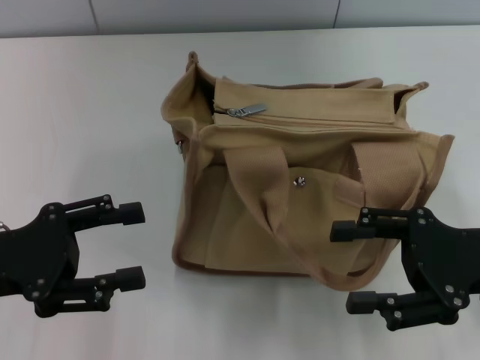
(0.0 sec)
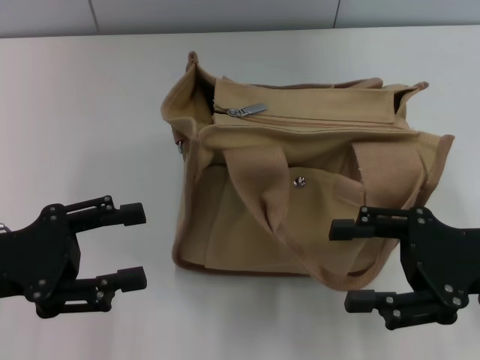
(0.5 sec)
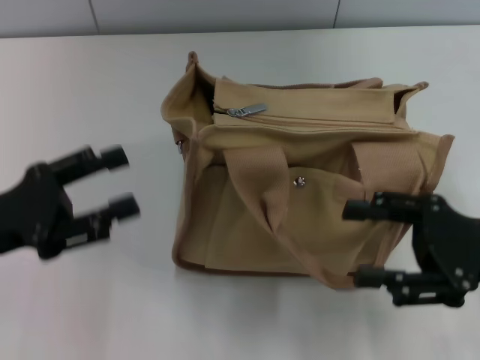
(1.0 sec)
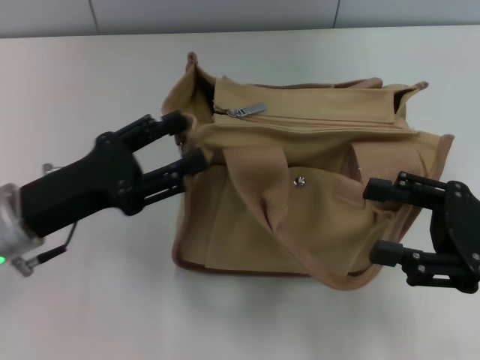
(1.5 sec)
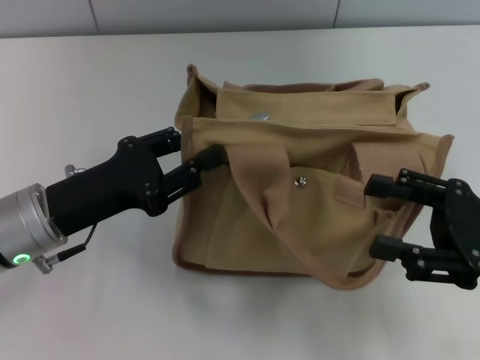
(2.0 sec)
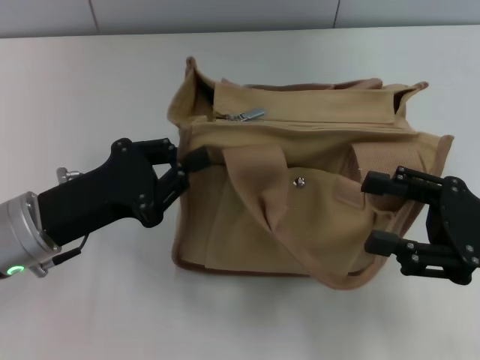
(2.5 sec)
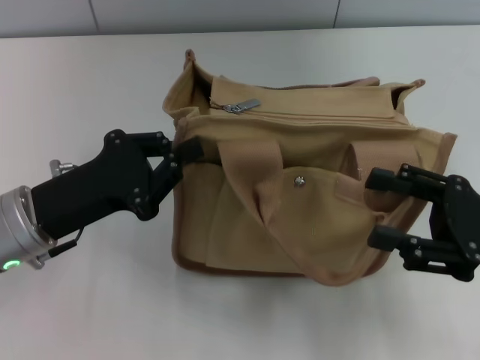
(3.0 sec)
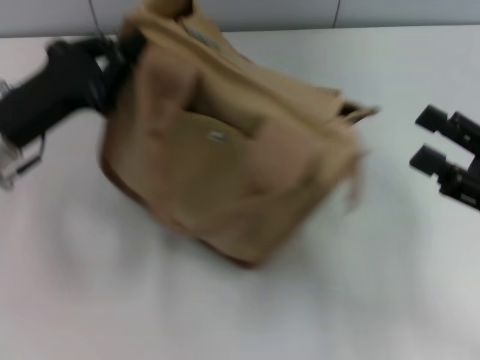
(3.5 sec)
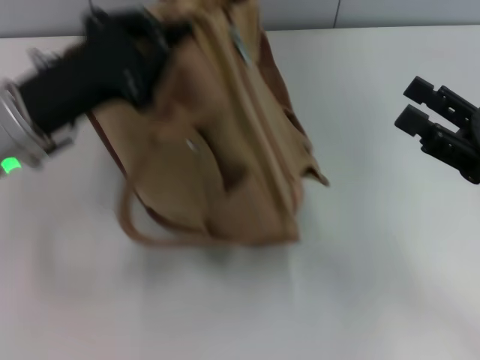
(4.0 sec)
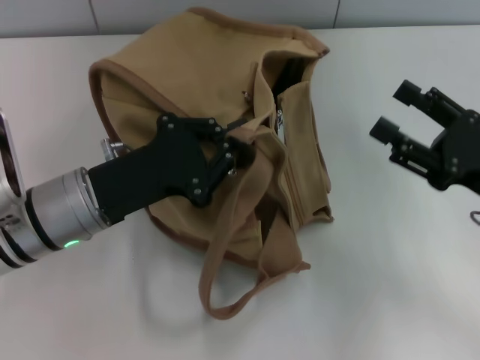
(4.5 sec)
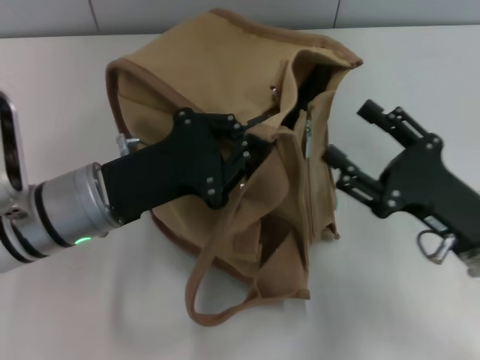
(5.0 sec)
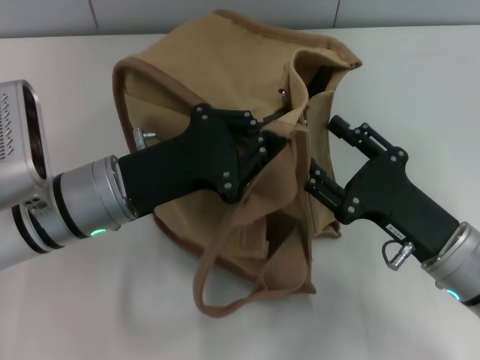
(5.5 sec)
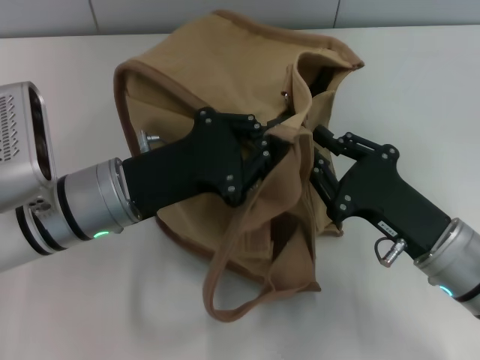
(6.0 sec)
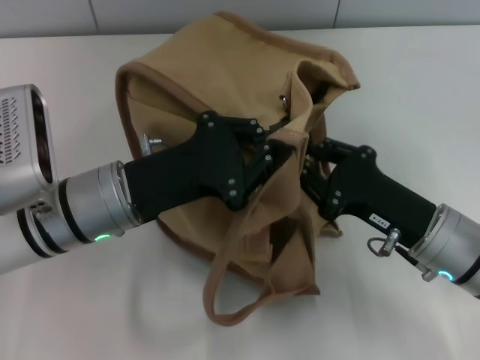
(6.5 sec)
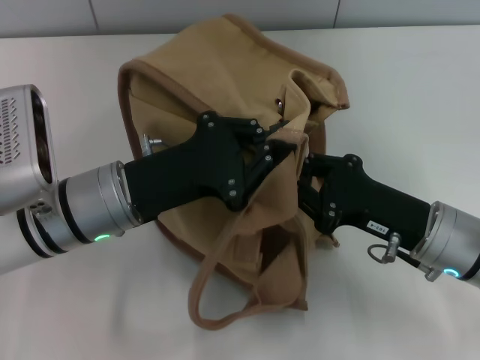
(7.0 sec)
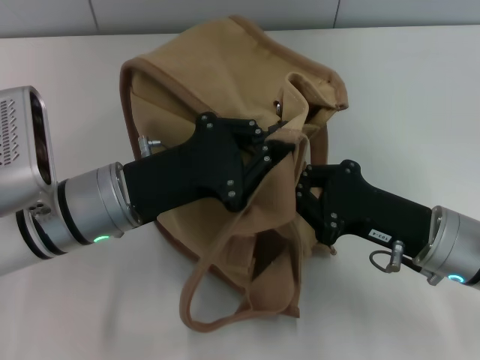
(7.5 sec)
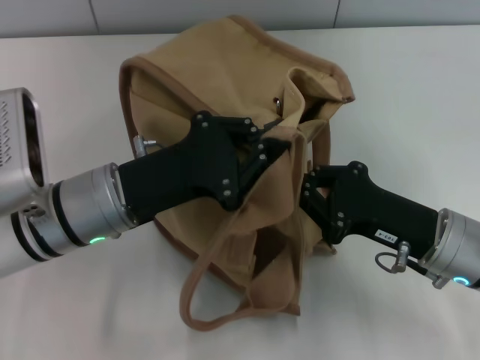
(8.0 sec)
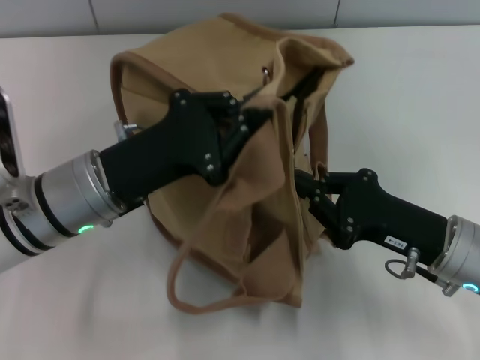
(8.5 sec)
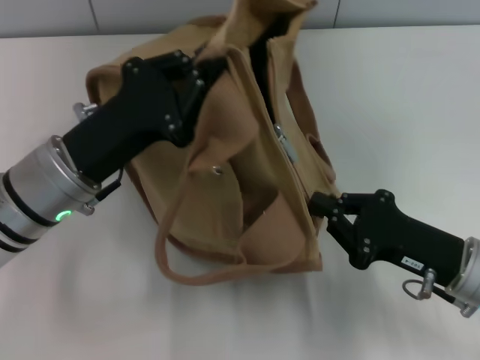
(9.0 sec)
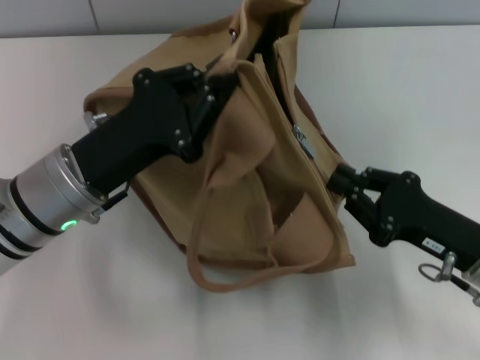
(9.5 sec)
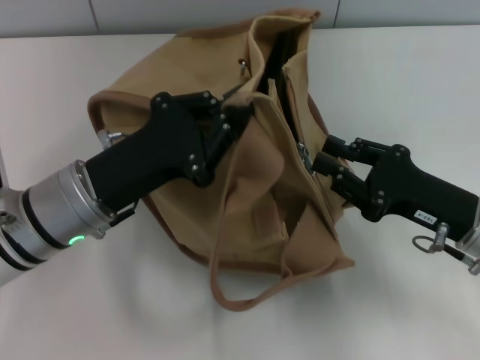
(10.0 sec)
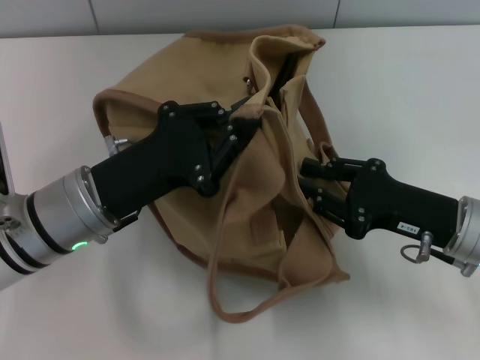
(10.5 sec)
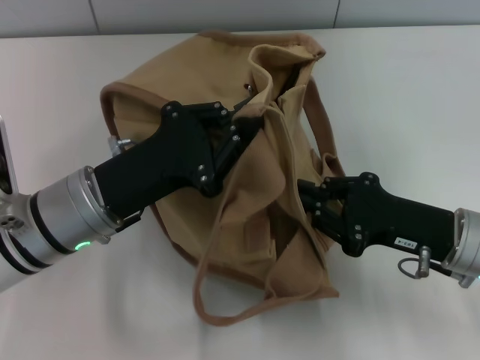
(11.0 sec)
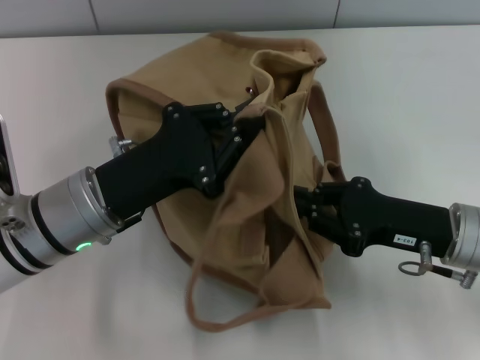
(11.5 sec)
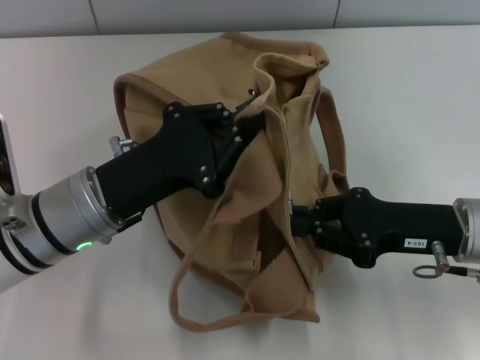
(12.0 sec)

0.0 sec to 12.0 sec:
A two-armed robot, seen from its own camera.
0.0 sec to 2.0 sec: The left gripper travels to the right by roughly 5 cm.
2.0 sec to 4.0 sec: The left gripper is displaced upward by some 5 cm, and closes.
4.0 sec to 6.0 sec: The left gripper goes approximately 5 cm to the right. Meanwhile the right gripper moves to the left and downward, some 10 cm, and closes.
6.0 sec to 8.0 sec: The right gripper closes its fingers.

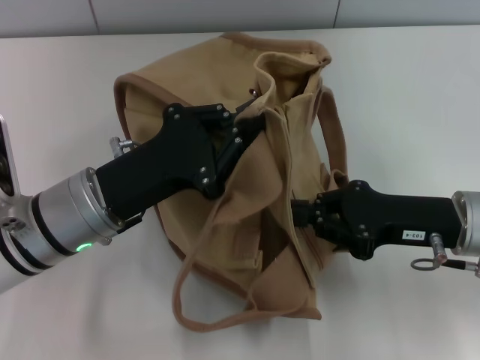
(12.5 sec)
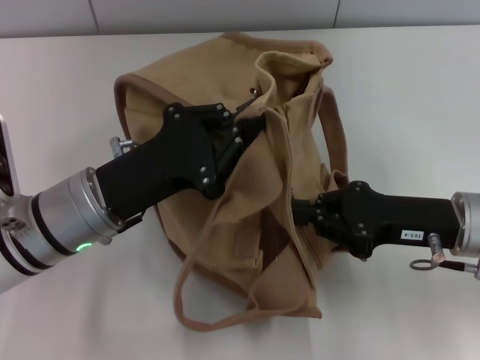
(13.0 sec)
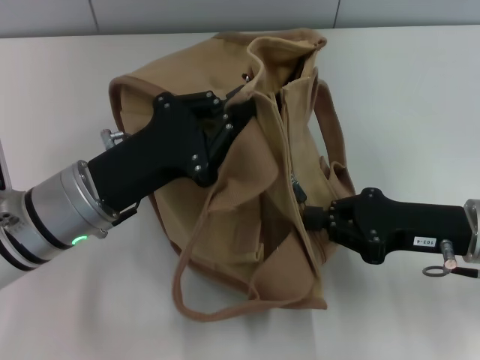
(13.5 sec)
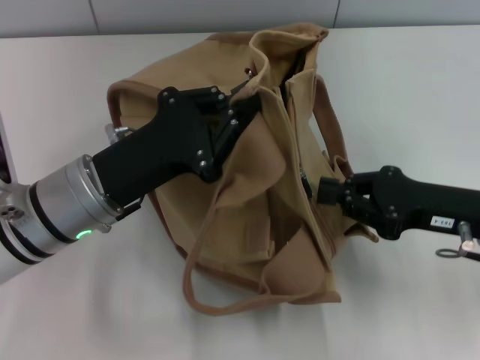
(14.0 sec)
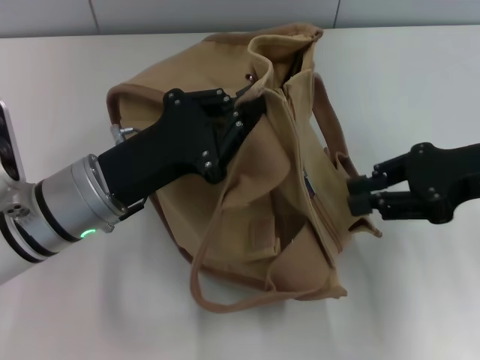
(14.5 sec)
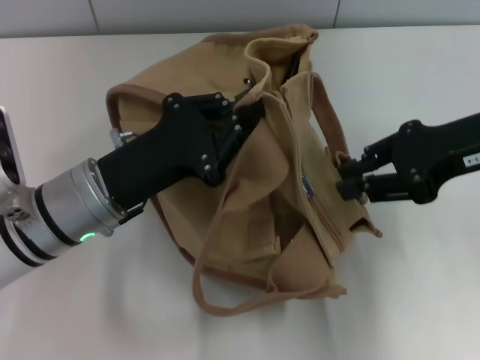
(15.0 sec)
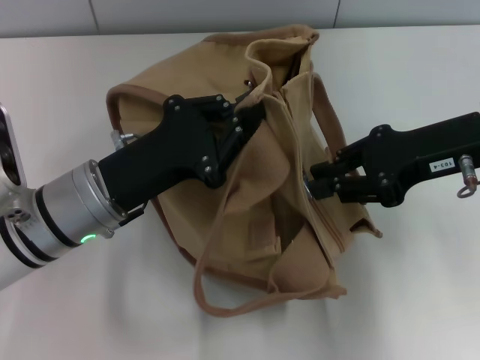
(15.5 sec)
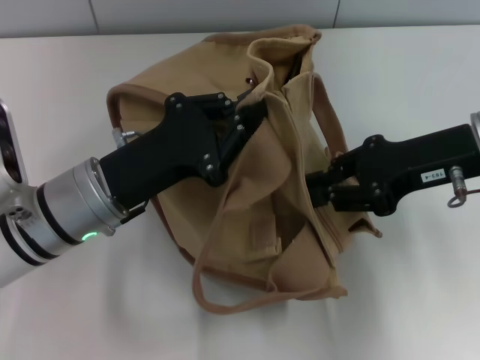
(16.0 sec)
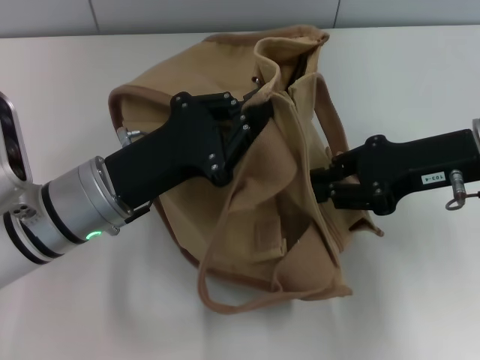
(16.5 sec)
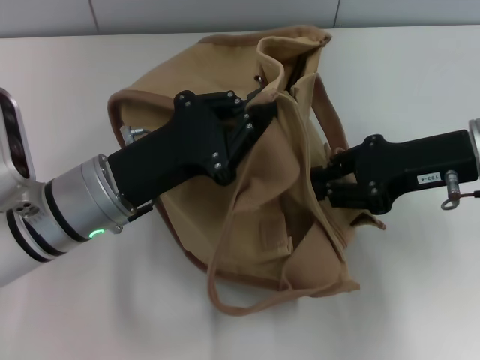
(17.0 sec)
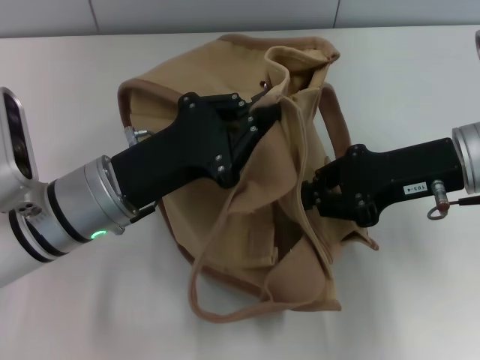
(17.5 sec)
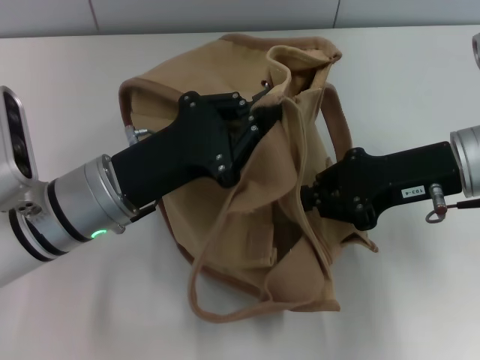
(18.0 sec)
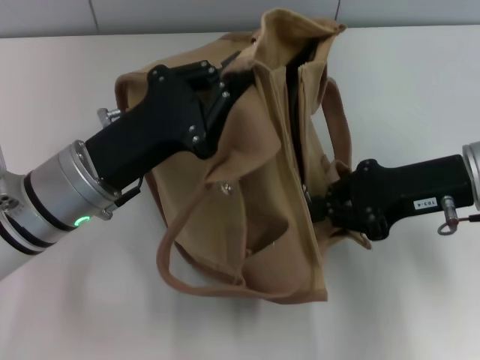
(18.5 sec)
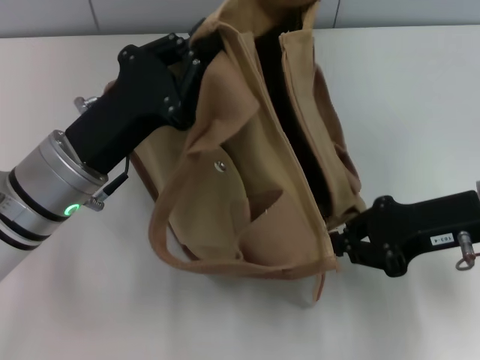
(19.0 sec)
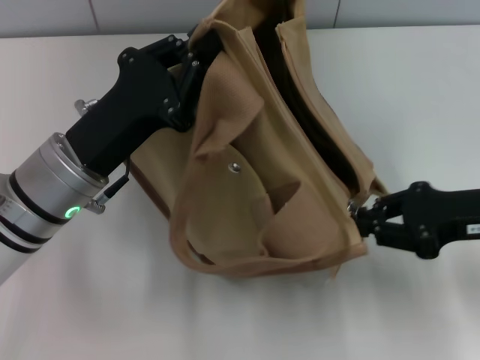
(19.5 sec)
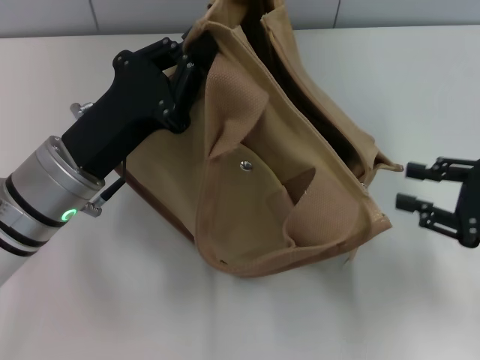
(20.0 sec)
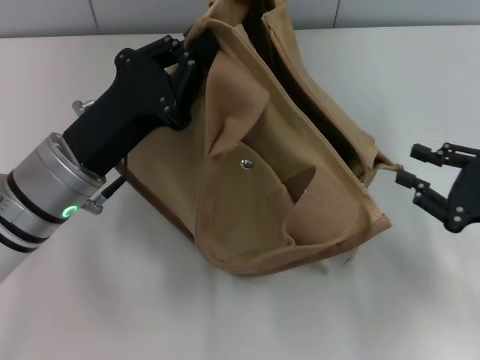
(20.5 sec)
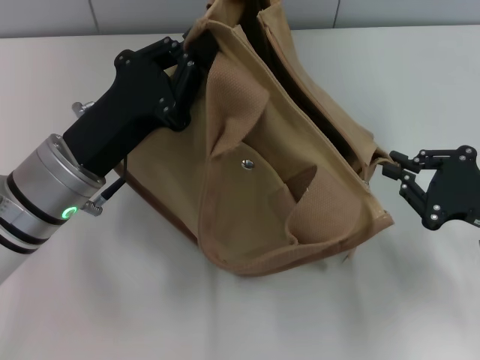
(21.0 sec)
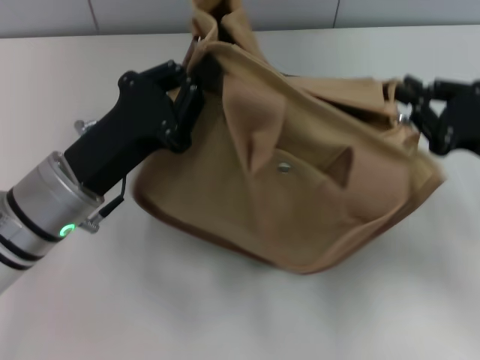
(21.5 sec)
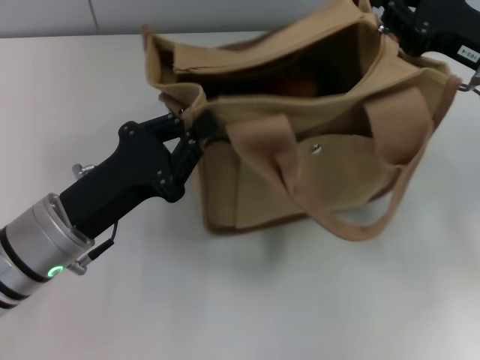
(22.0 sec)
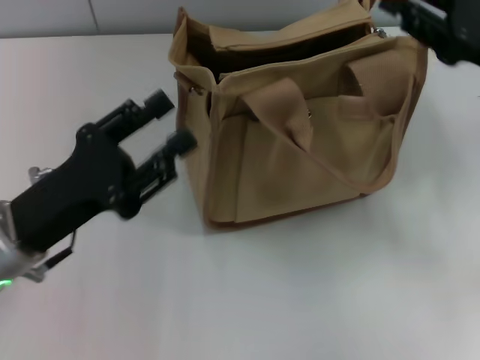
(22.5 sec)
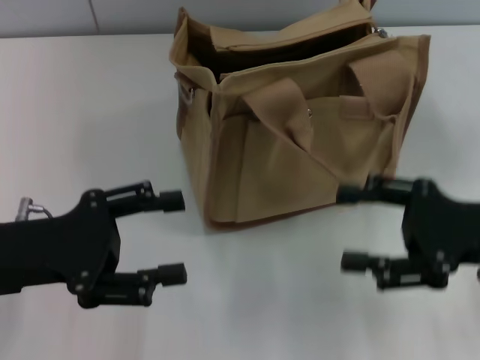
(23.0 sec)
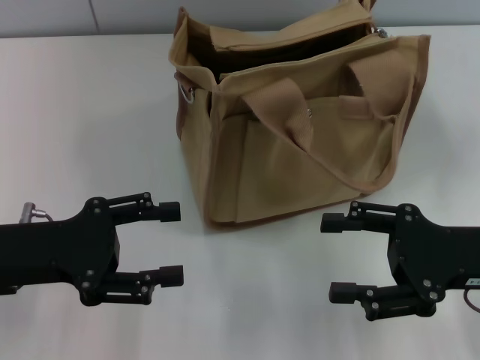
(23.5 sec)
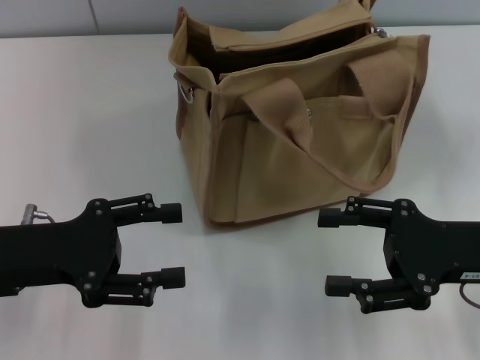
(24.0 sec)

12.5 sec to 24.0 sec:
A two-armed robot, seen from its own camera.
Step, 12.5 sec to 19.5 sec: Pull open the zipper with your right hand.
Step, 20.0 sec to 22.0 sec: Grab the bag with your left hand.
12.5 sec to 14.5 sec: The right gripper travels upward by approximately 10 cm.
14.5 sec to 16.5 sec: The grippers move only a little.
18.5 sec to 20.0 sec: The right gripper moves to the right and backward, roughly 10 cm, and opens its fingers.
20.0 sec to 22.0 sec: The right gripper heads forward, to the left and upward, covering roughly 15 cm.
22.0 sec to 24.0 sec: The left gripper shifts about 5 cm to the left, and opens its fingers, while the right gripper moves backward, about 10 cm, and opens up.
